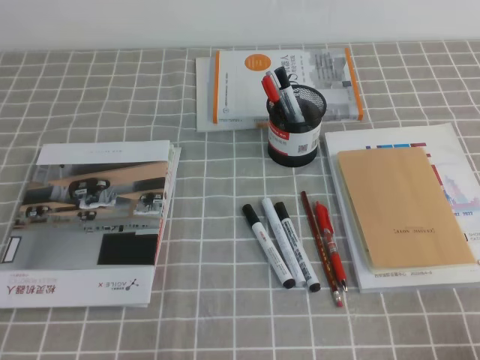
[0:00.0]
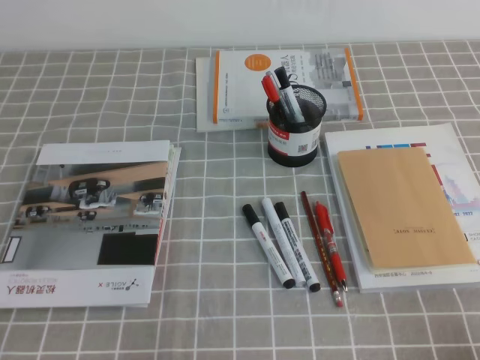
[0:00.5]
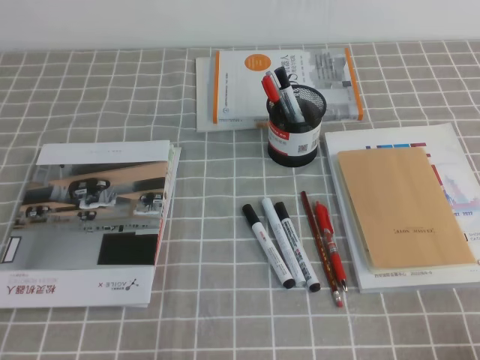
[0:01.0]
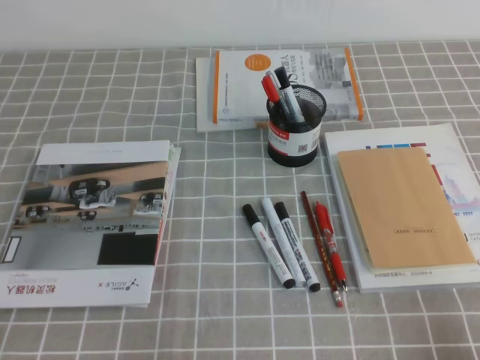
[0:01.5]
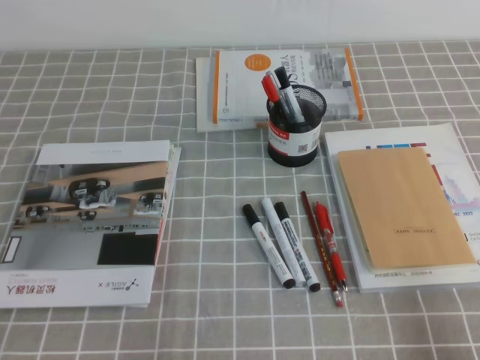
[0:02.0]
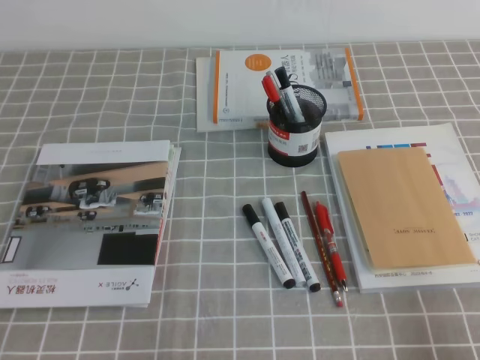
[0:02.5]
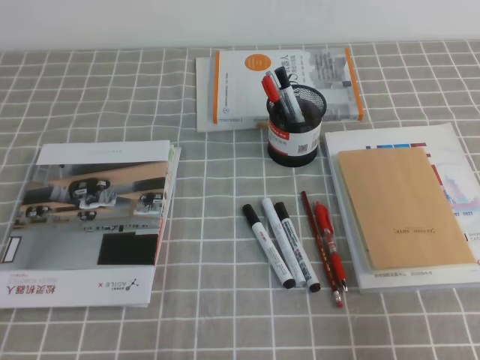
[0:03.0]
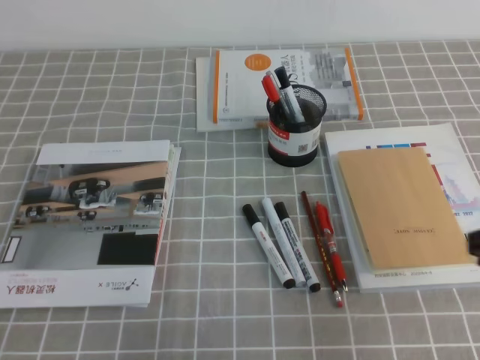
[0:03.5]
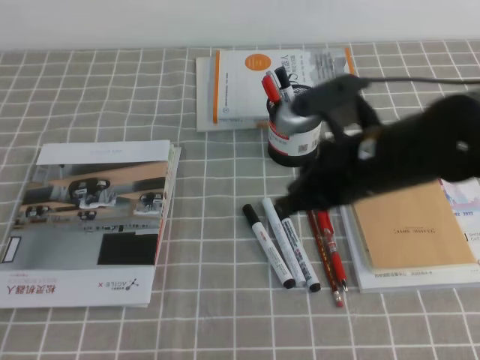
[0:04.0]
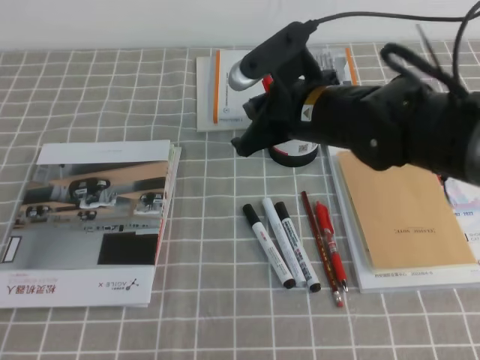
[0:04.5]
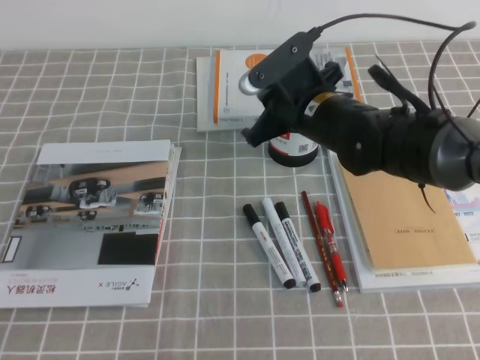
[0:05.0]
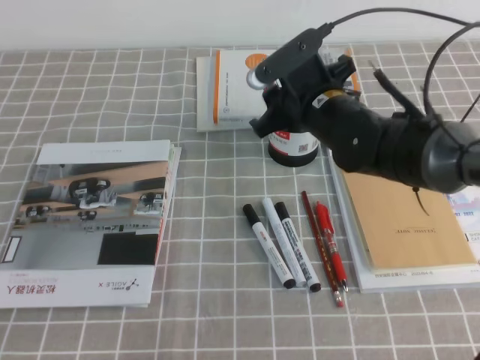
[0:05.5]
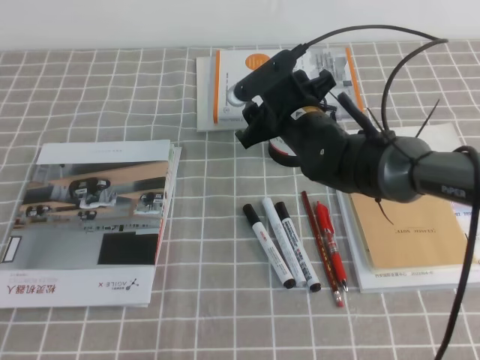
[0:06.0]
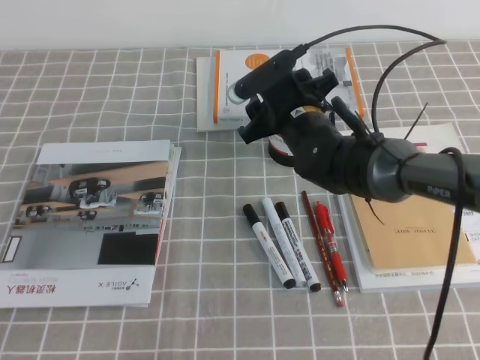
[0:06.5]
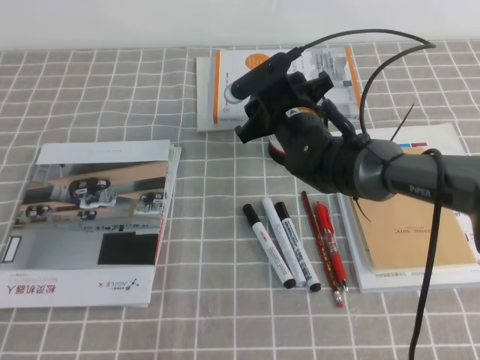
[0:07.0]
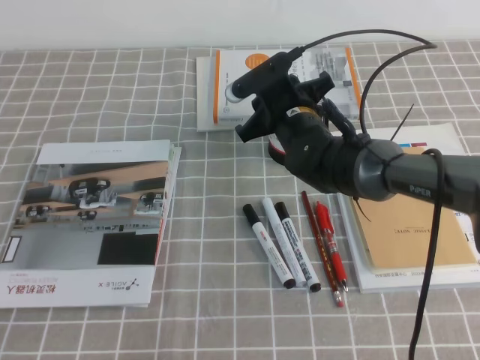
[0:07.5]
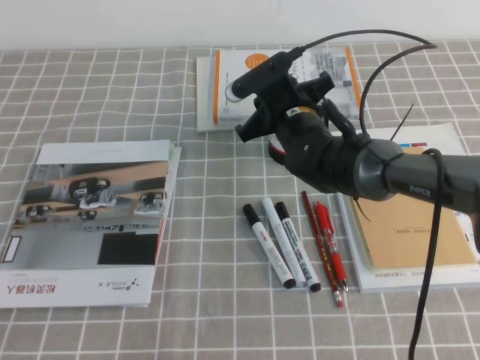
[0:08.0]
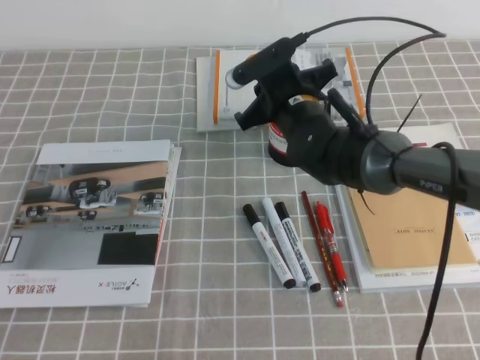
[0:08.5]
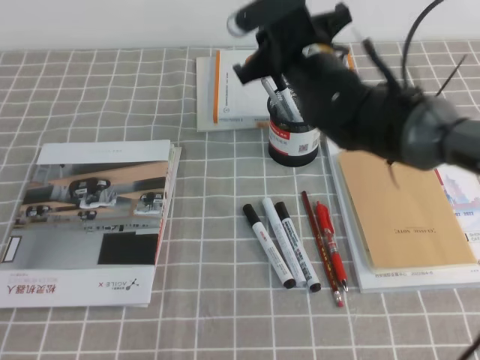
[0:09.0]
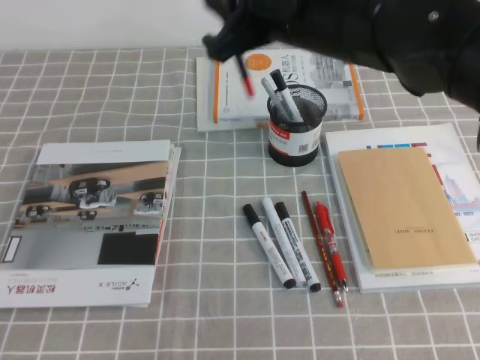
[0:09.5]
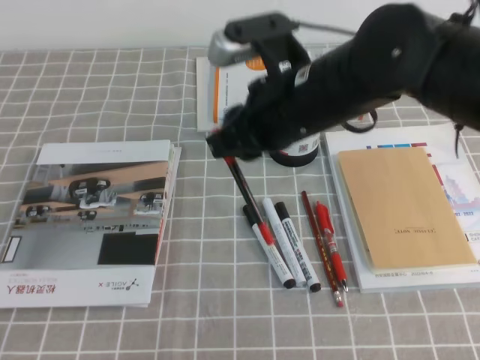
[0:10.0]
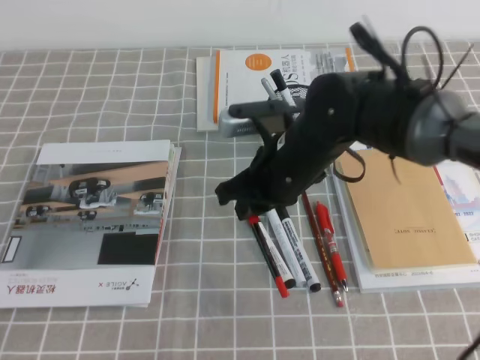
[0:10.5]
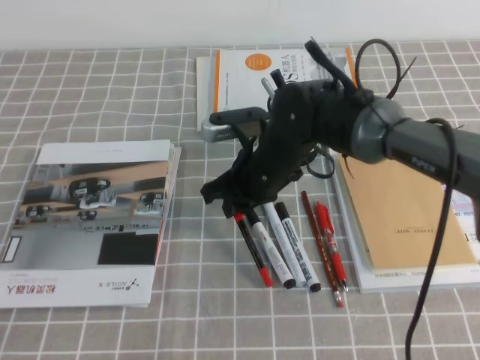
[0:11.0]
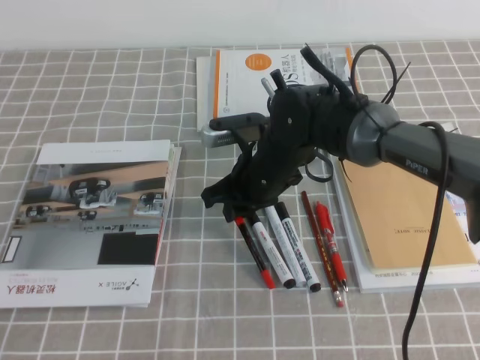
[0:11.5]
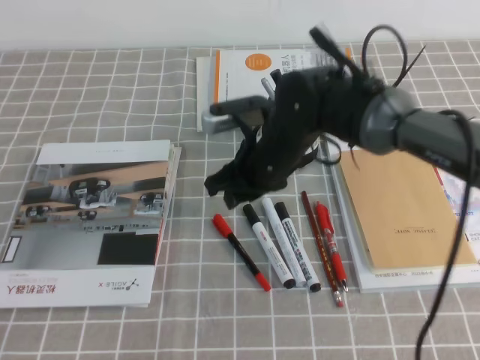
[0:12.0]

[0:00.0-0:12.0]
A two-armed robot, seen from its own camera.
0:02.0 to 0:04.0: The right gripper heads forward, to the left and upward, covering approximately 30 cm.
0:04.0 to 0:06.0: The right gripper shifts about 15 cm forward, to the left and downward, and opens its fingers.
0:06.0 to 0:08.0: The right gripper closes up.
0:08.0 to 0:10.0: The right gripper heads upward and backward, covering some 15 cm.
0:10.0 to 0:12.0: The right gripper goes roughly 10 cm downward and forward.

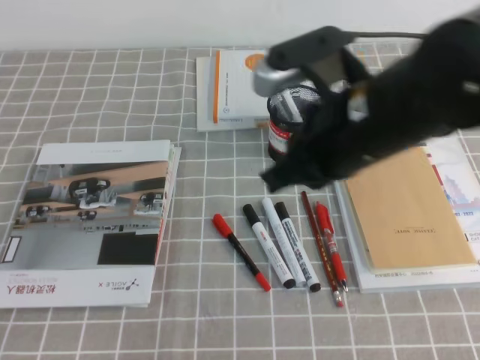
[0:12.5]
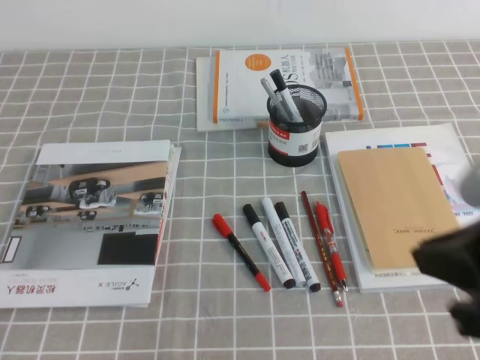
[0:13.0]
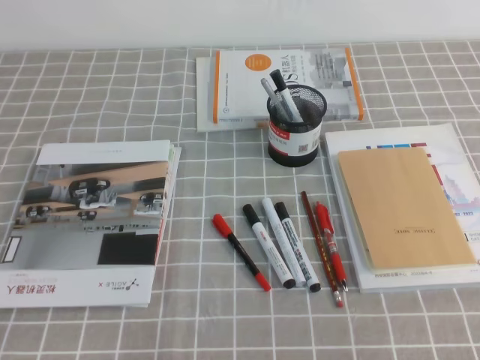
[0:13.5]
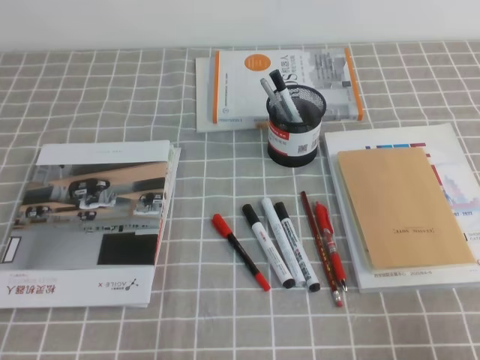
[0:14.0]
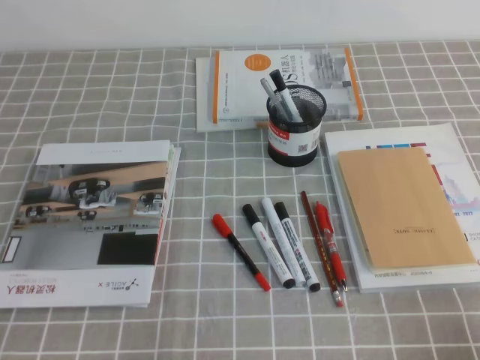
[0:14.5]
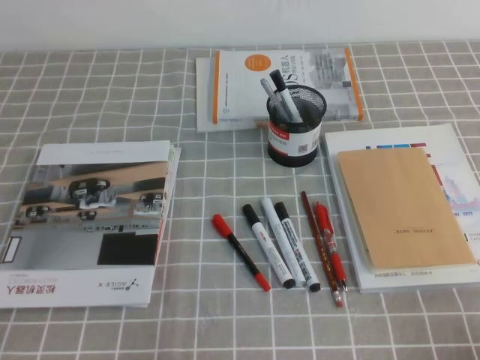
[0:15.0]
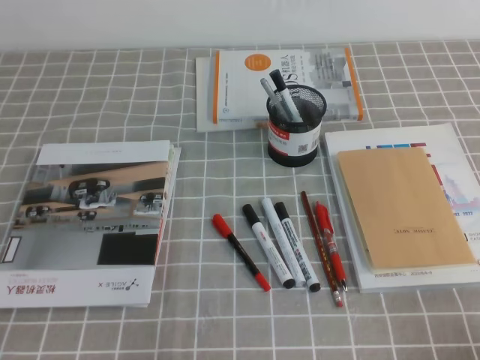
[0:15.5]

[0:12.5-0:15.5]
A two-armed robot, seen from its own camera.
Step, 0:12.5 to 0:15.5: Pick up the pen from the pen holder.
0:12.5 to 0:14.0: The right gripper heads to the right, backward and downward, covering about 30 cm.

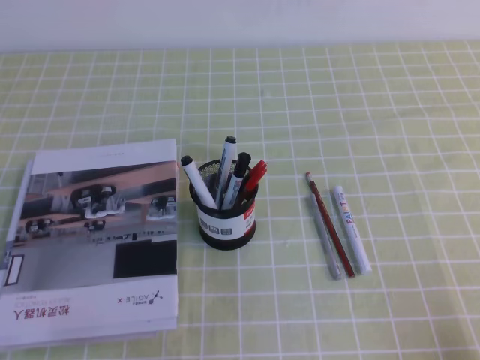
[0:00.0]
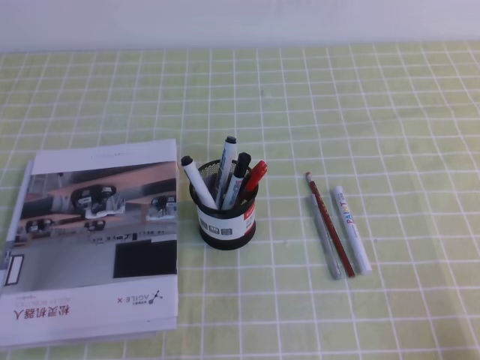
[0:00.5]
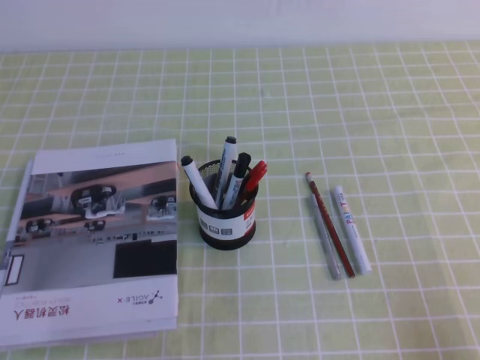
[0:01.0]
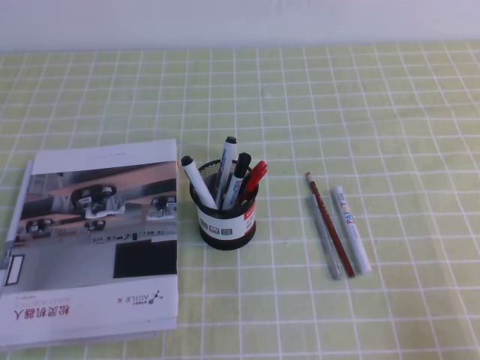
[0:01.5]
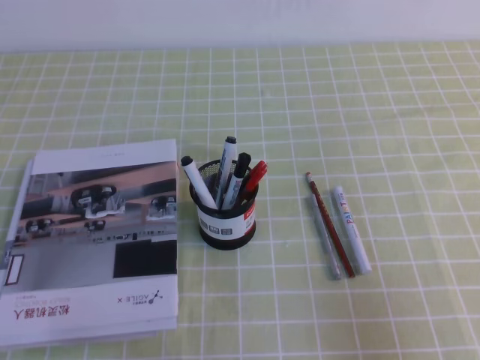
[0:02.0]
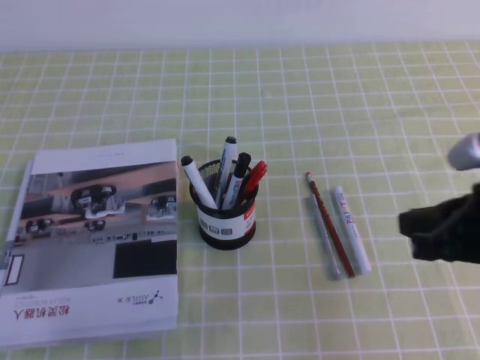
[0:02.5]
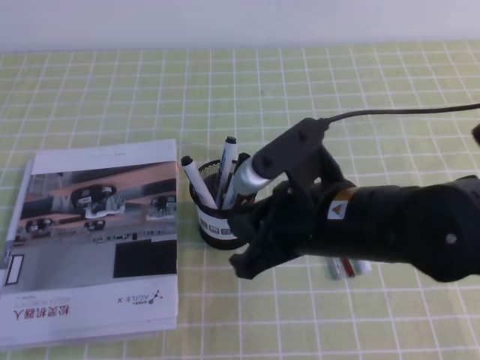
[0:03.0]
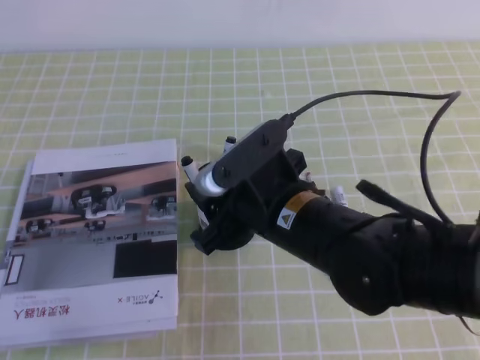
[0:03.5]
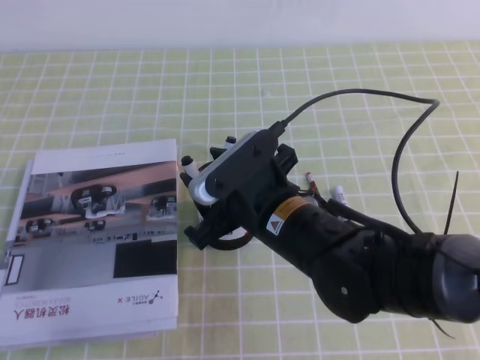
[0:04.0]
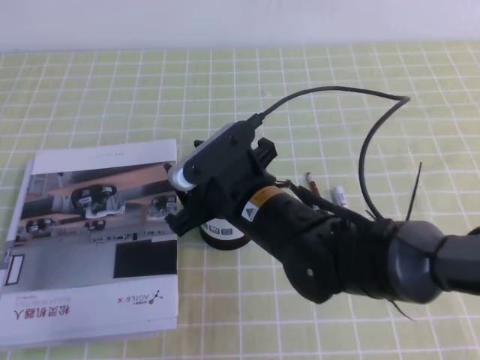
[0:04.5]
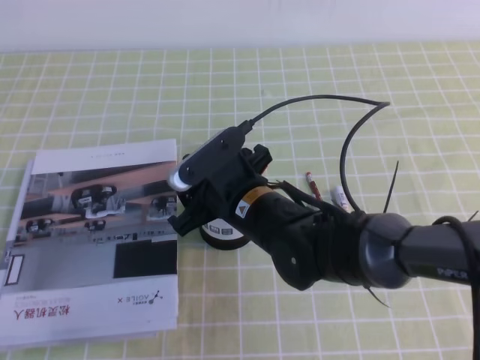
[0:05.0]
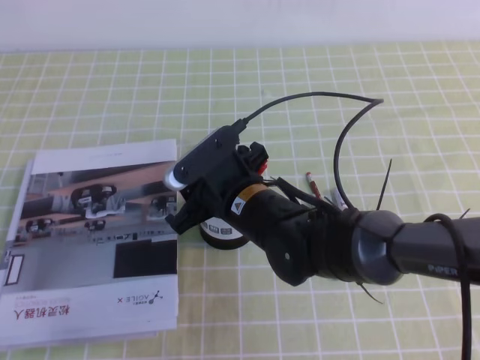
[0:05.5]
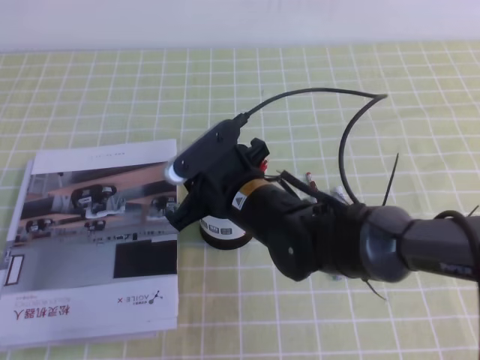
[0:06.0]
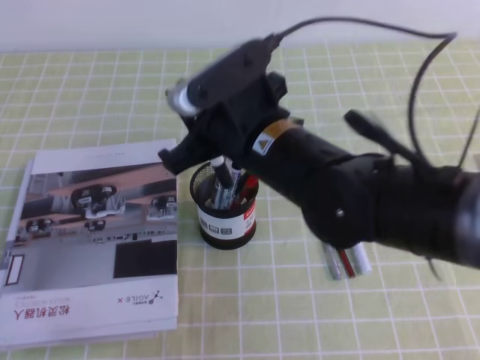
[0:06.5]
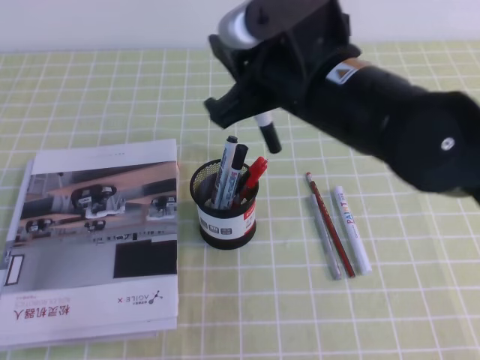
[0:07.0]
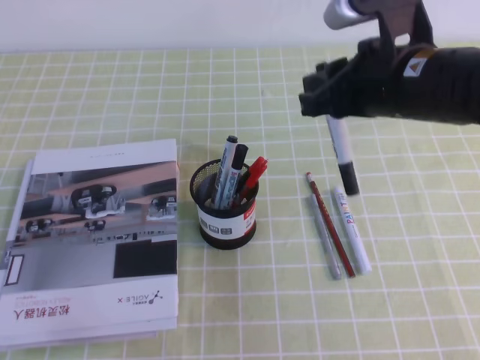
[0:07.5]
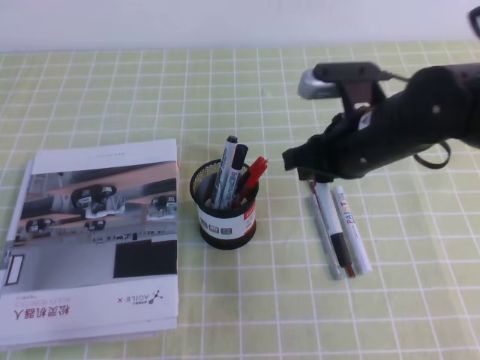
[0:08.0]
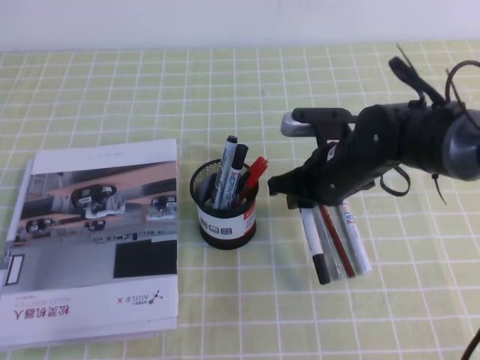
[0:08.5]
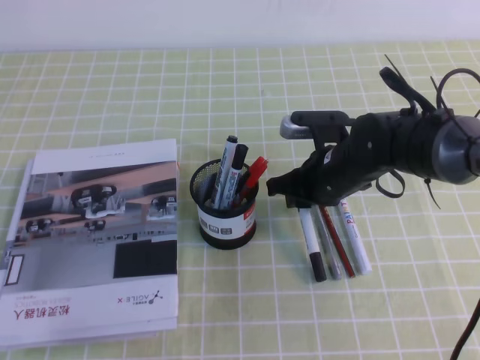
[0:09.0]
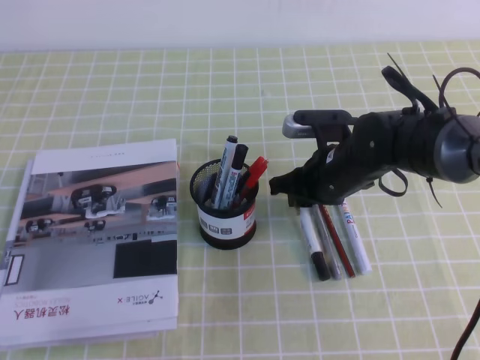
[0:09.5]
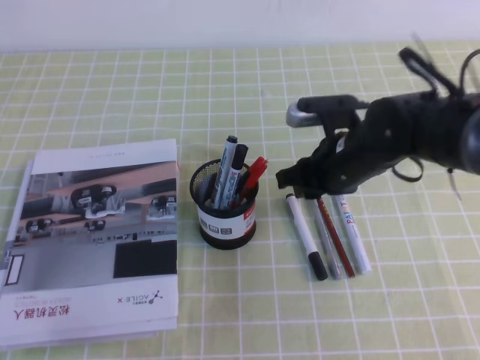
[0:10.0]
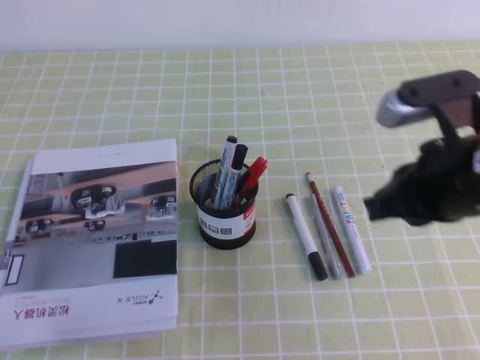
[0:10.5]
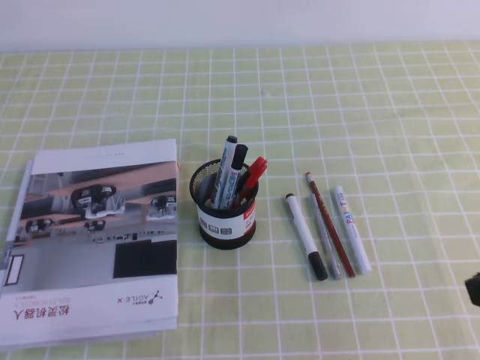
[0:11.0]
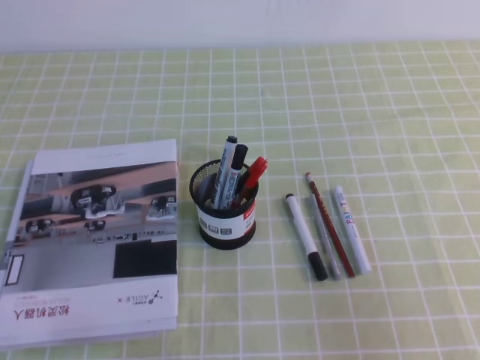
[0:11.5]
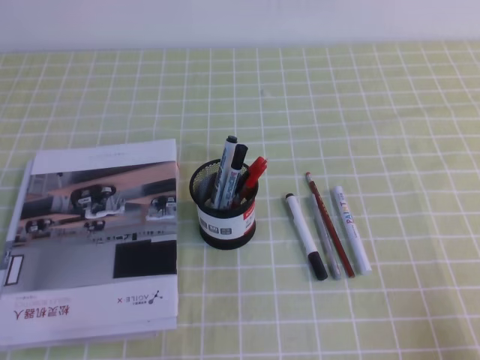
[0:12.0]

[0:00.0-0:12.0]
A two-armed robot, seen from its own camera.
0:00.0 to 0:02.0: The right gripper heads upward, covering approximately 10 cm.
0:02.0 to 0:04.0: The right gripper travels to the left and forward by roughly 30 cm, and opens its fingers.
0:04.0 to 0:06.0: The right gripper moves some 5 cm, and closes up.
0:06.0 to 0:08.0: The right gripper travels to the right and upward by some 15 cm.
0:08.0 to 0:10.0: The right gripper travels downward by some 5 cm.
0:10.0 to 0:12.0: The right gripper is displaced backward and to the right by about 35 cm, and closes.
